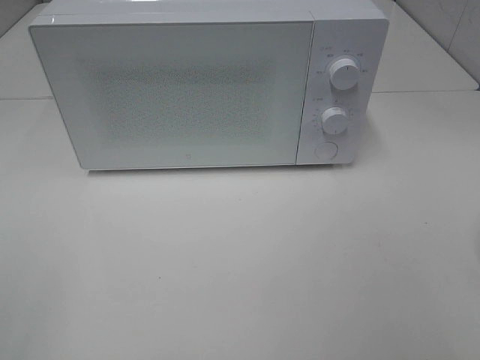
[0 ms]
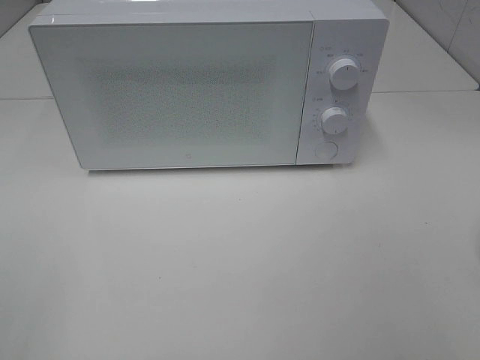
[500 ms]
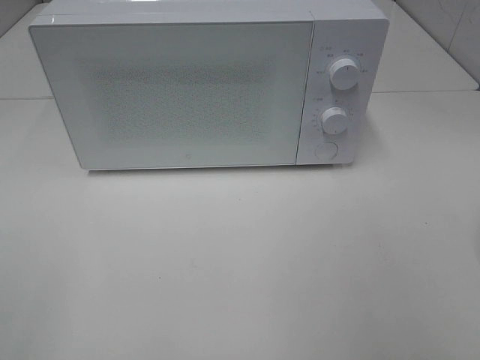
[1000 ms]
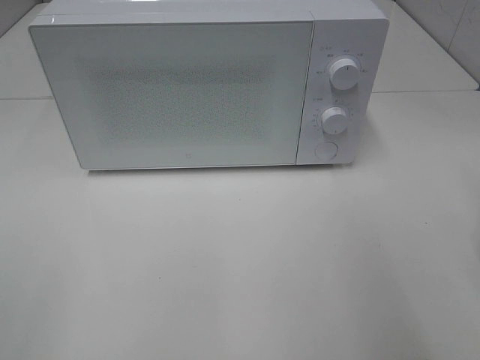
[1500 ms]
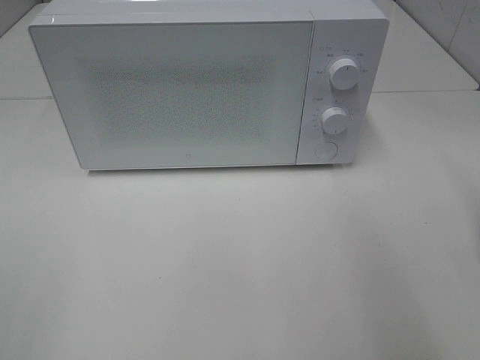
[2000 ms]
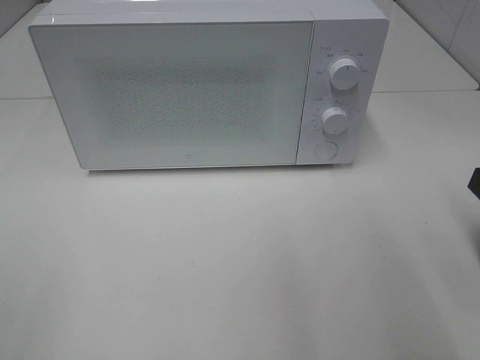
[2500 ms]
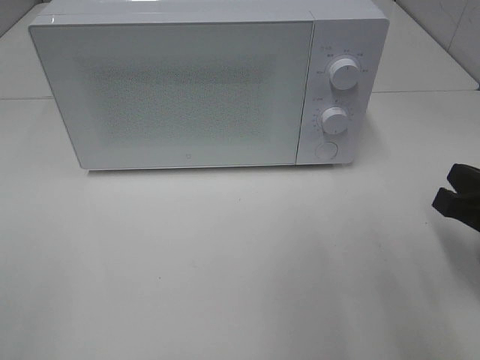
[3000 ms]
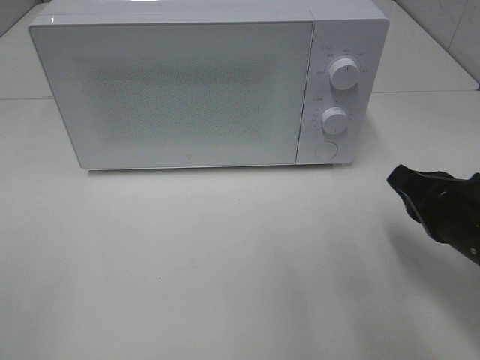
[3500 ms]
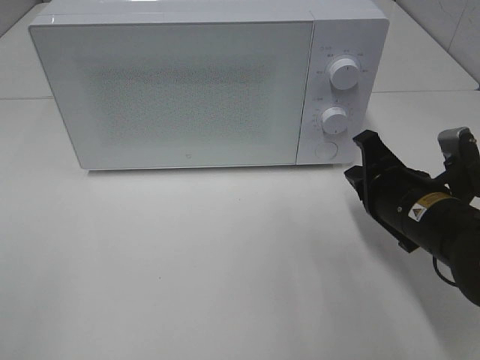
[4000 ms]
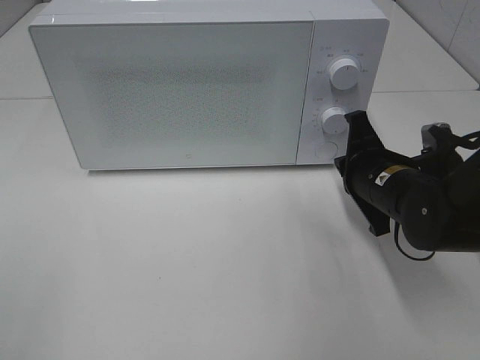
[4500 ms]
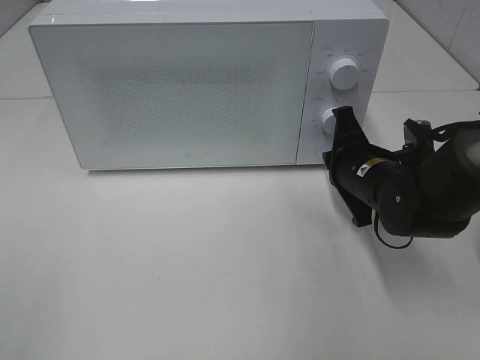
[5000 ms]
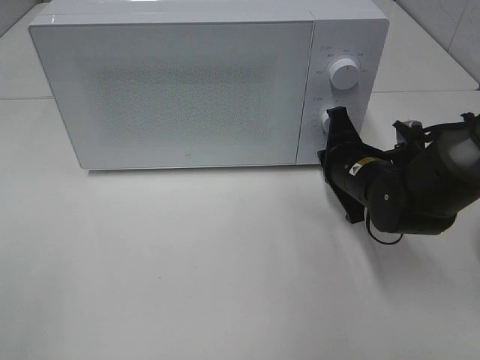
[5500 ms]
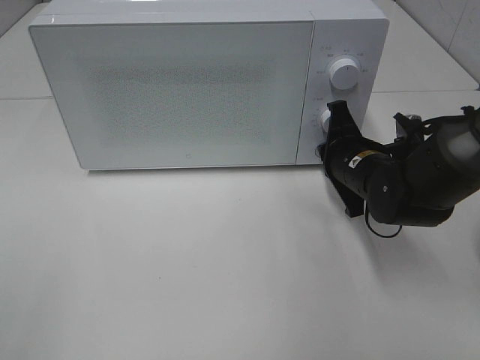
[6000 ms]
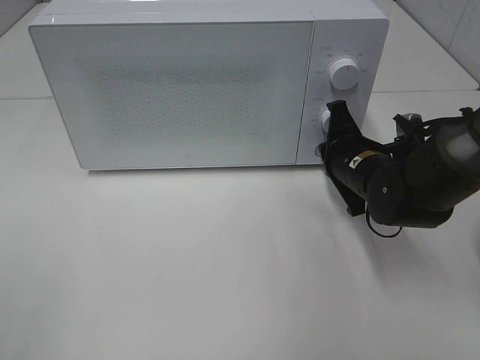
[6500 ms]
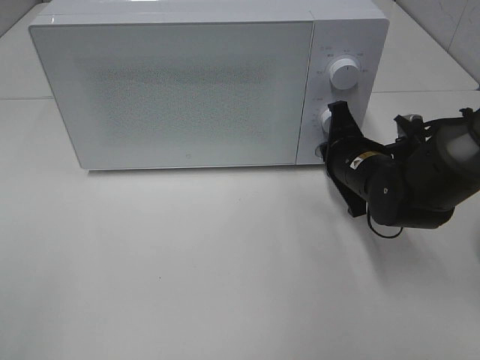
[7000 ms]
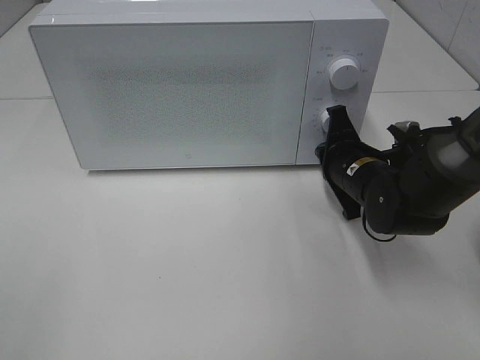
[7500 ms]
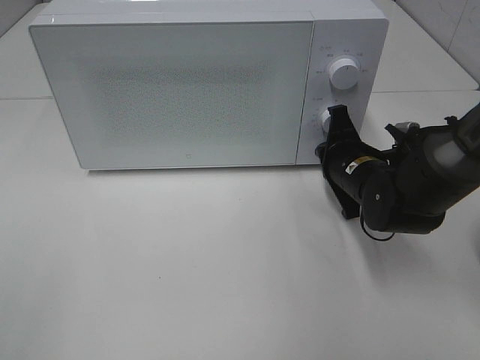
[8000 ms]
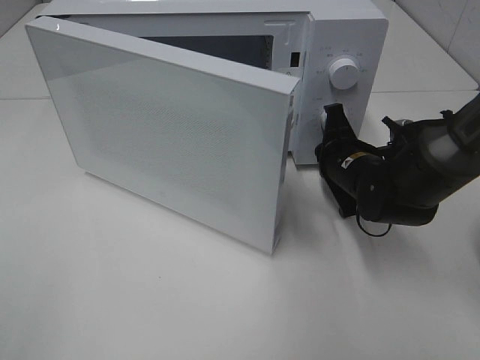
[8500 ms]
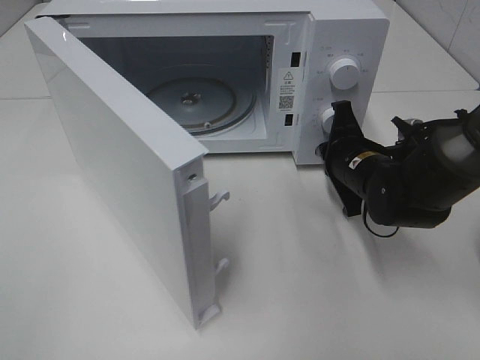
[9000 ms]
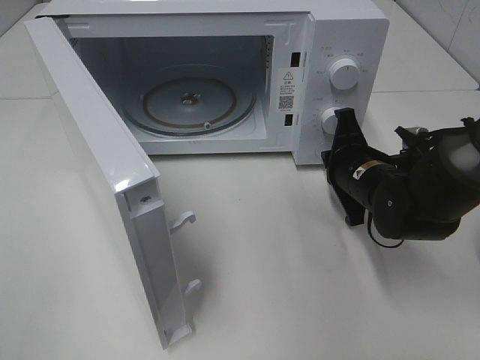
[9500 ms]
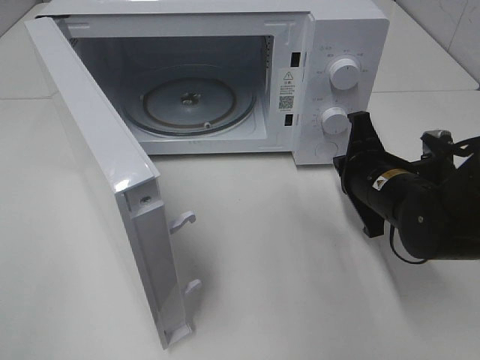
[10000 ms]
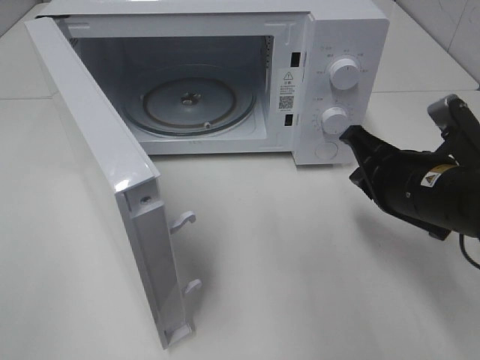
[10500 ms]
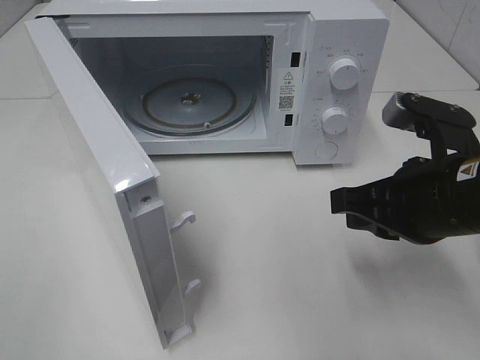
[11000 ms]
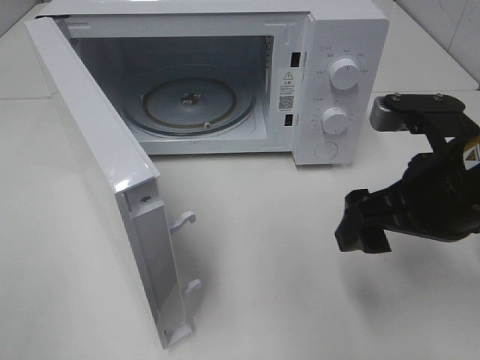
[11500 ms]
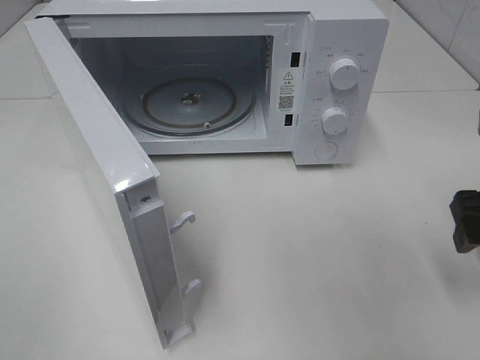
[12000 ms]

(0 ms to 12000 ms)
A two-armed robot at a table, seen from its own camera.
Task of the whole recording: Heat the burger.
Step, 0 ms - 9000 ms: Right hand: press the switch.
2000 ms - 4000 ms: The right gripper heads downward, forward and to the left, covering about 20 cm.
4000 ms - 6000 ms: The right gripper shifts approximately 10 cm forward.
6000 ms - 8000 ms: Neither gripper changes place.
8000 ms - 10000 ms: The right gripper travels backward by some 5 cm.
10000 ms - 12000 ms: The right gripper shifts roughly 15 cm to the right, upward and backward, and opens.

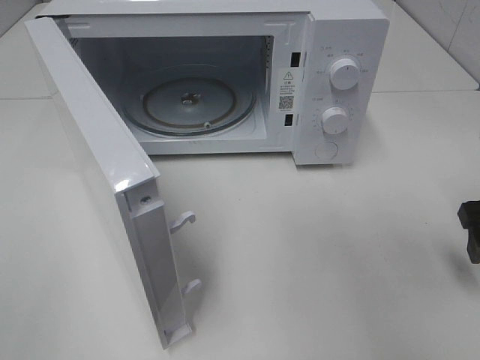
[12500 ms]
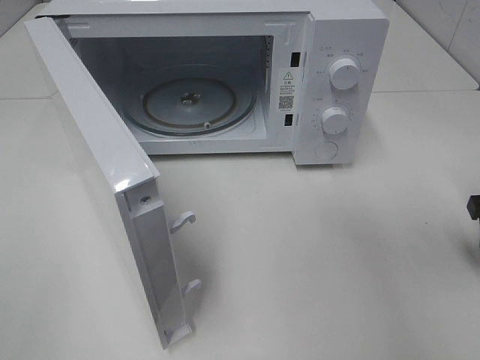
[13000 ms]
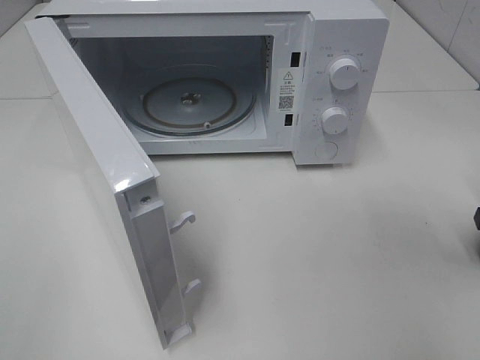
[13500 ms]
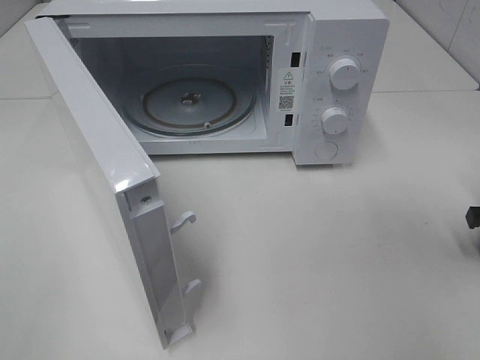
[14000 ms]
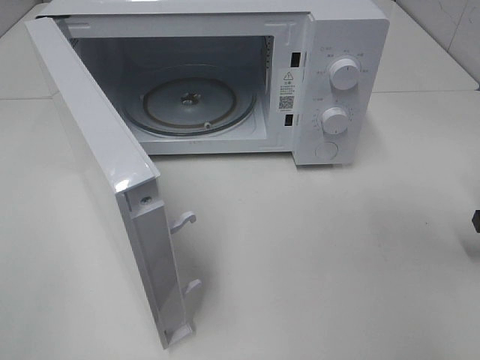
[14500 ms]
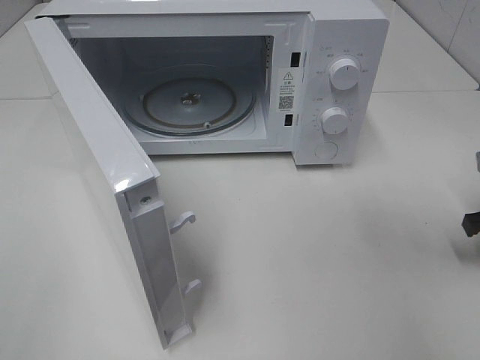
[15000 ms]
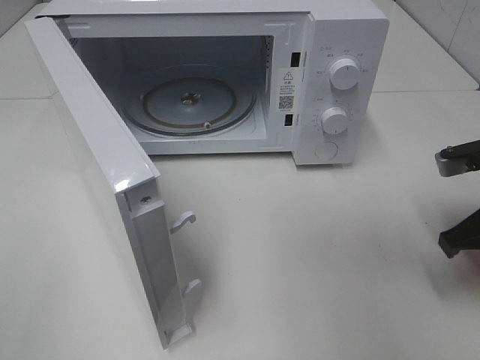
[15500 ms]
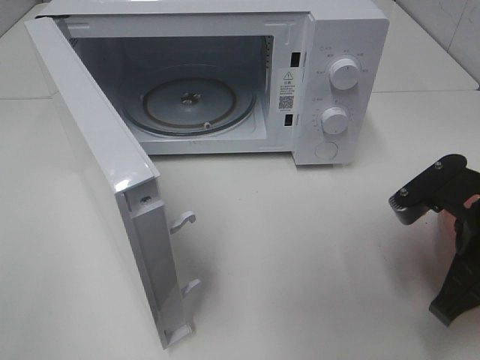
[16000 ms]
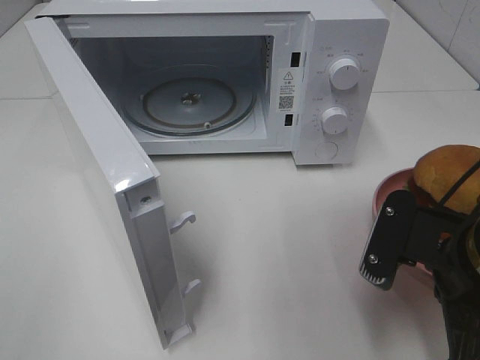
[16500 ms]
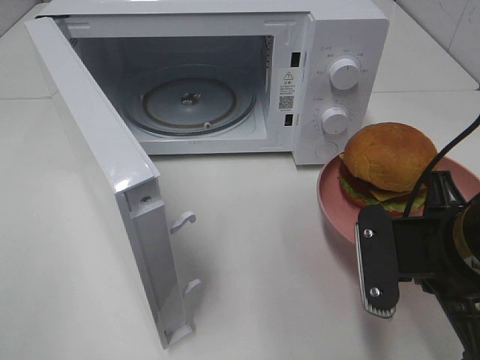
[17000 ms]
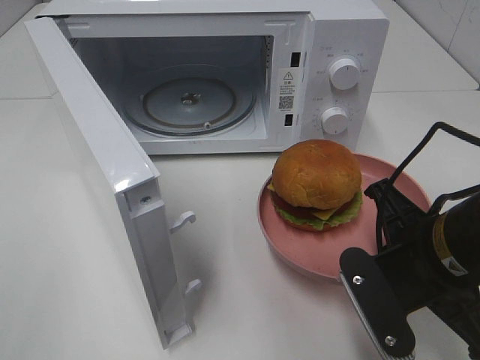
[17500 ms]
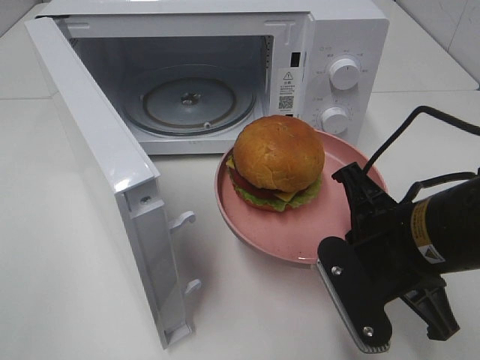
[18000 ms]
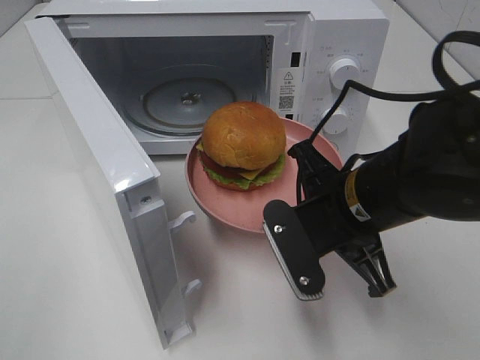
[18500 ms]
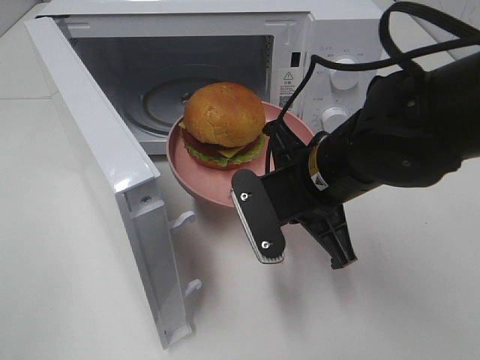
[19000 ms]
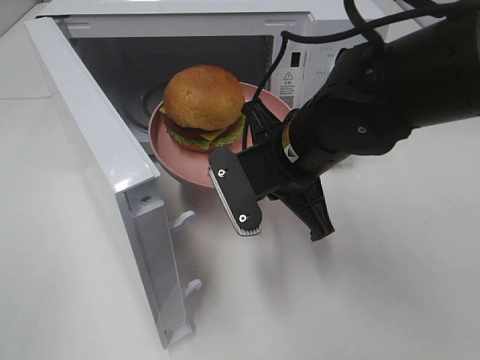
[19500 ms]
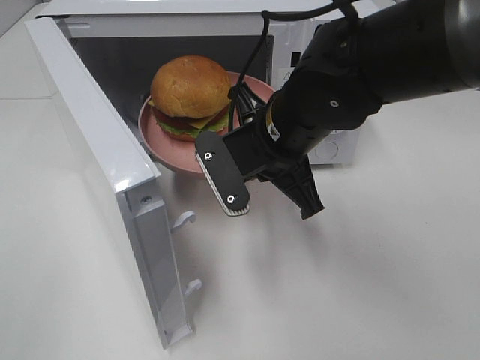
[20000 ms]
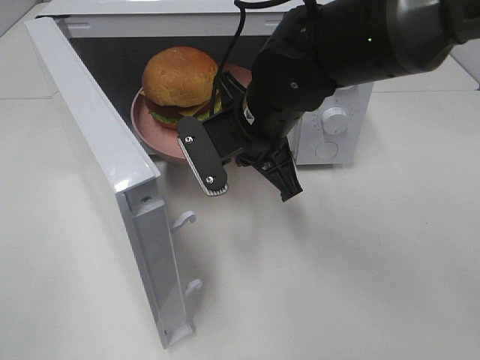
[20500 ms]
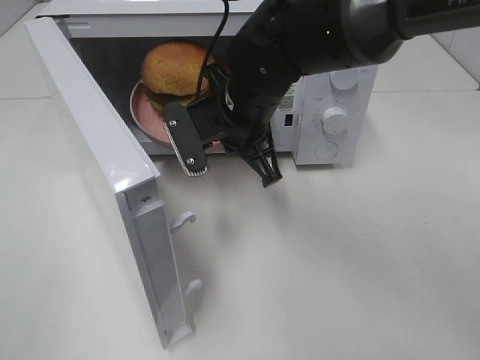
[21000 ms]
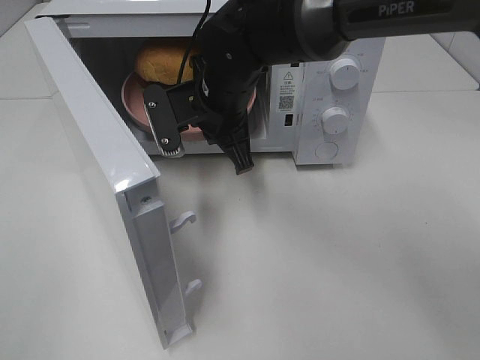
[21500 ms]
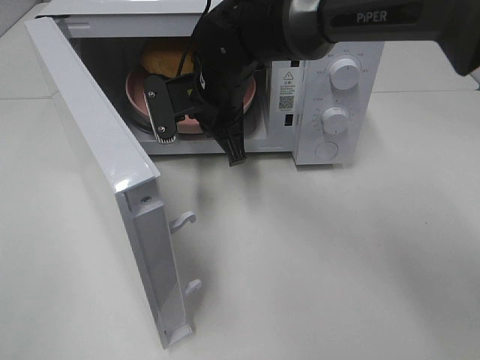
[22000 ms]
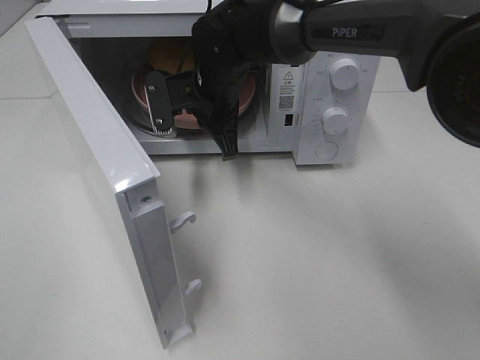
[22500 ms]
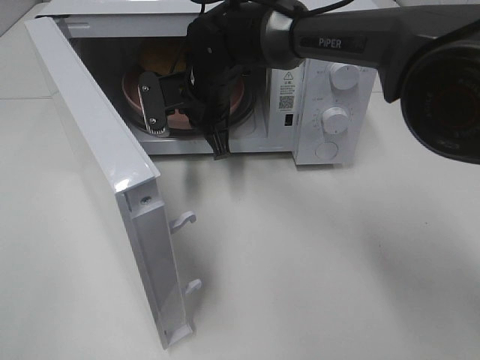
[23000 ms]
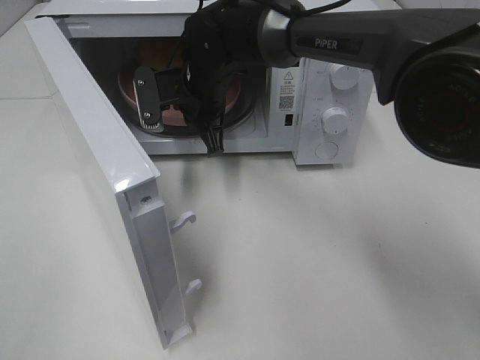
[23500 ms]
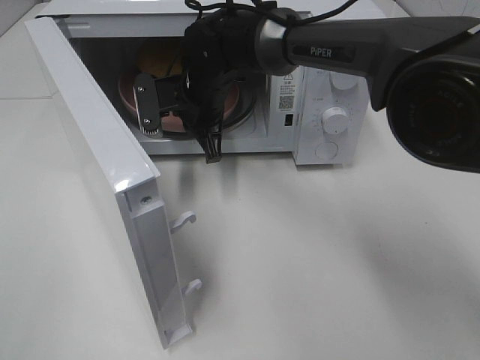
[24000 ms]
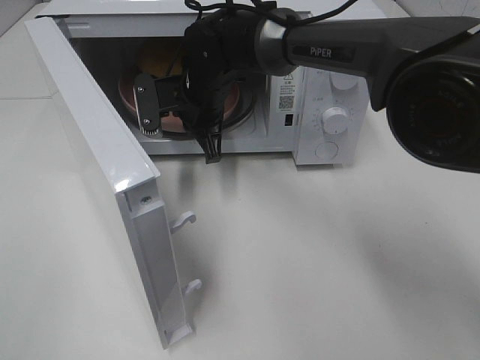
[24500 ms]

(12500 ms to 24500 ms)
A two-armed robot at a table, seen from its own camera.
Task of the whole recording: Heat the burger.
12500 ms - 14500 ms: The right gripper shifts about 10 cm to the right and downward, and closes up.
14500 ms - 16500 ms: The right gripper shifts about 20 cm to the left and backward.
16500 ms - 18500 ms: The right gripper shifts some 10 cm to the left and forward.
18500 ms - 20500 ms: The right gripper goes roughly 10 cm forward and to the left.
20500 ms - 22500 ms: The right gripper moves forward, some 10 cm.
22500 ms - 24500 ms: There are only small adjustments of the grippers.

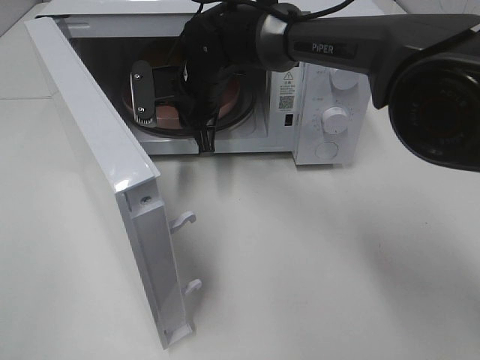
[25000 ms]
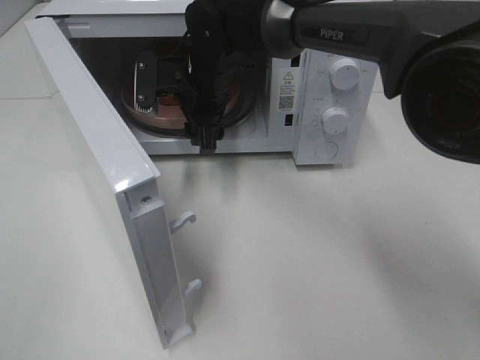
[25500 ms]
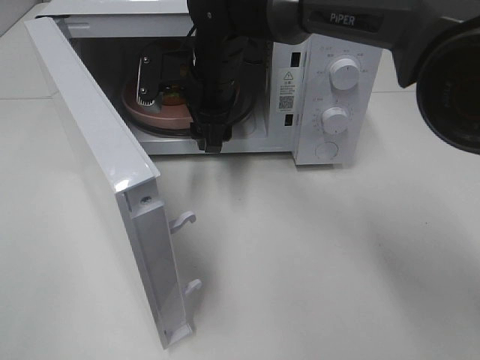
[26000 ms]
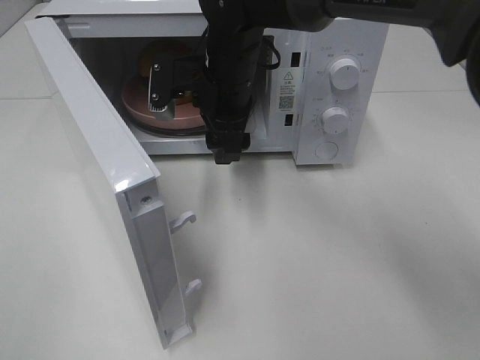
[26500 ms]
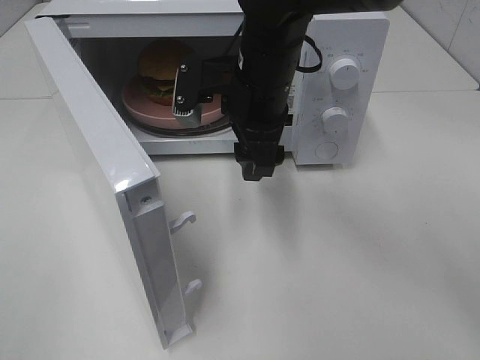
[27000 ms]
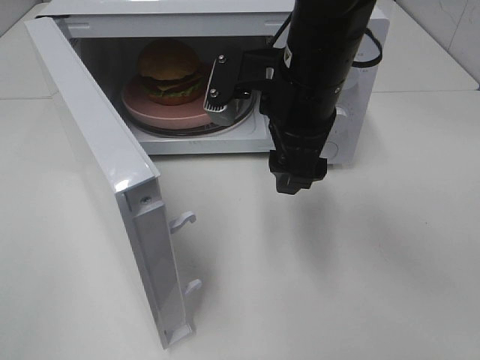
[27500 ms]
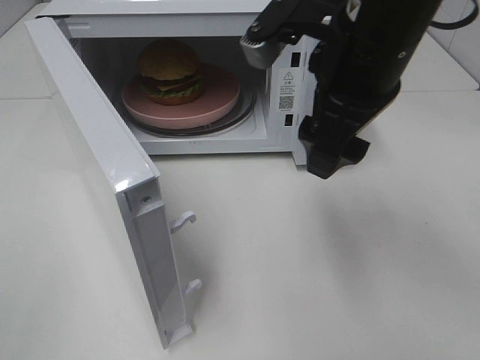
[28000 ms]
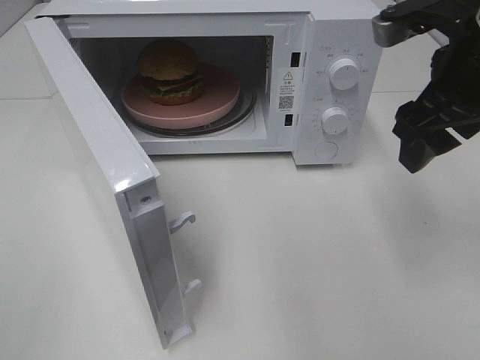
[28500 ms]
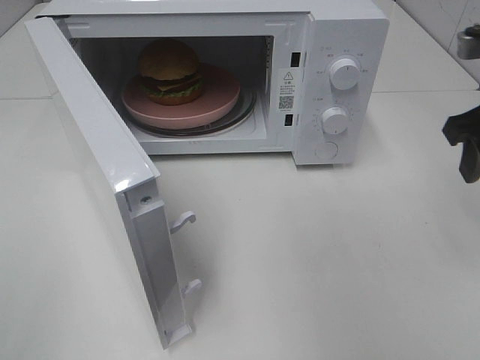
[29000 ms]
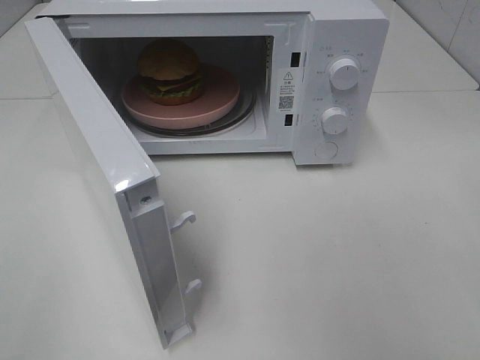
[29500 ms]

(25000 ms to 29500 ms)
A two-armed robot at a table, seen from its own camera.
Task of the whole recording: Heat the burger.
25000 ms - 27000 ms: The right gripper travels backward, to the right and upward by some 15 cm, and opens up.
27000 ms - 29500 ms: The right gripper is displaced to the right and backward by roughly 35 cm.
